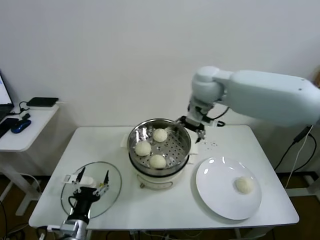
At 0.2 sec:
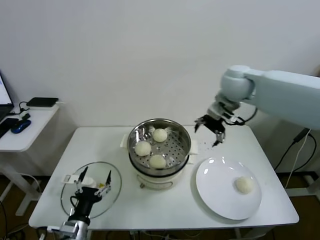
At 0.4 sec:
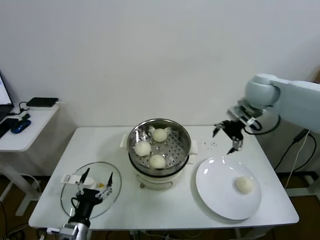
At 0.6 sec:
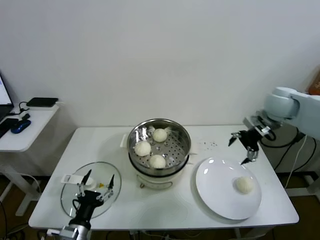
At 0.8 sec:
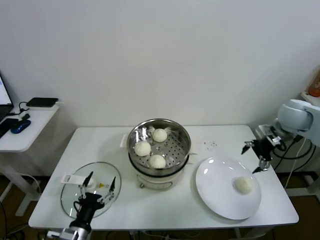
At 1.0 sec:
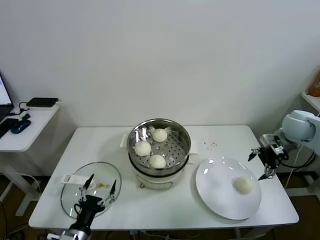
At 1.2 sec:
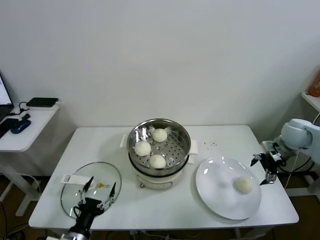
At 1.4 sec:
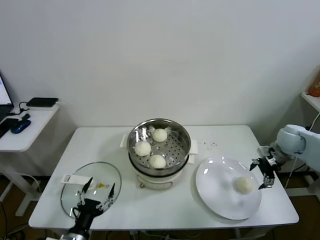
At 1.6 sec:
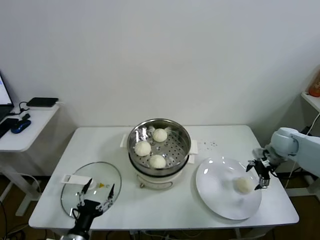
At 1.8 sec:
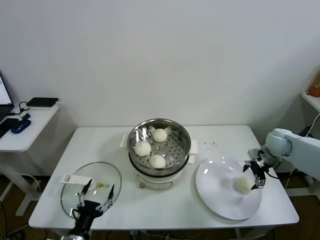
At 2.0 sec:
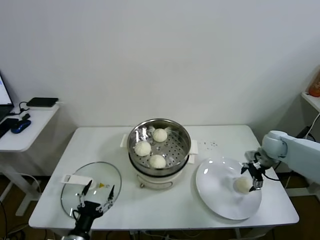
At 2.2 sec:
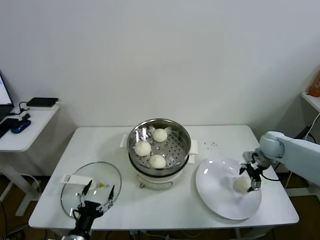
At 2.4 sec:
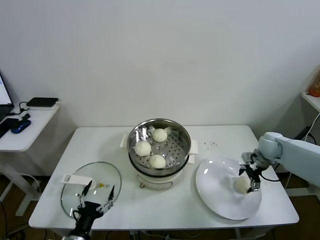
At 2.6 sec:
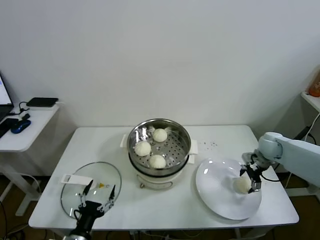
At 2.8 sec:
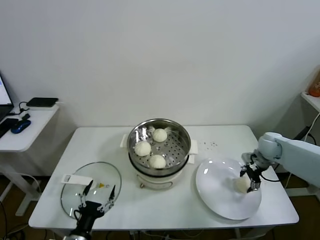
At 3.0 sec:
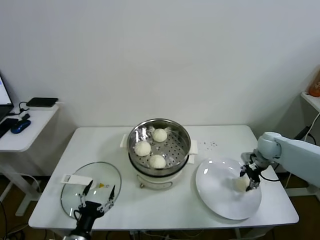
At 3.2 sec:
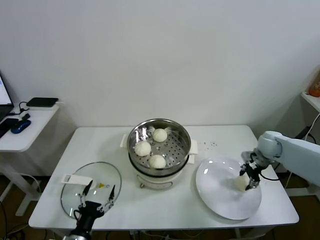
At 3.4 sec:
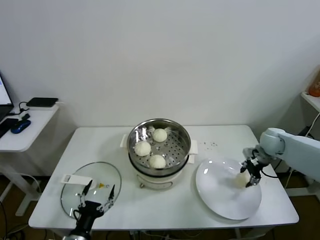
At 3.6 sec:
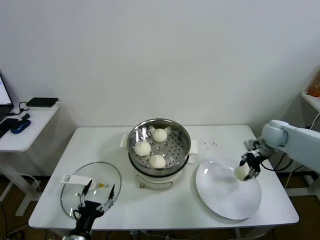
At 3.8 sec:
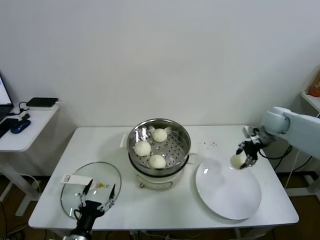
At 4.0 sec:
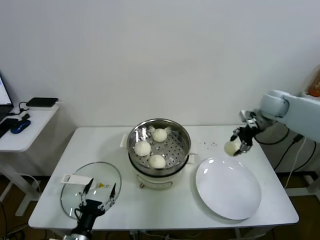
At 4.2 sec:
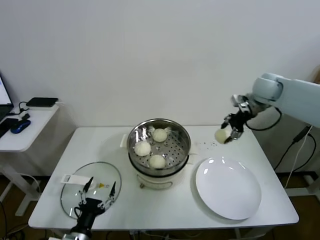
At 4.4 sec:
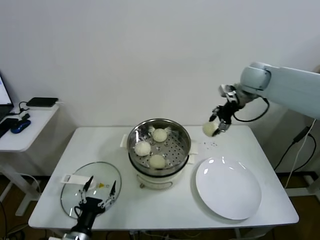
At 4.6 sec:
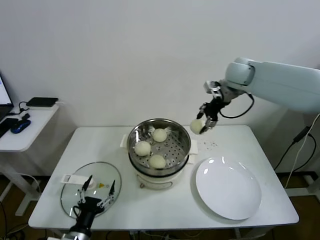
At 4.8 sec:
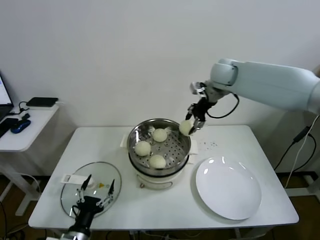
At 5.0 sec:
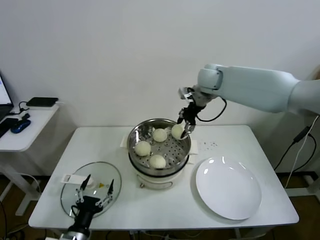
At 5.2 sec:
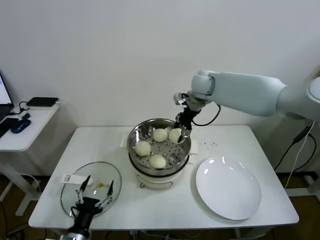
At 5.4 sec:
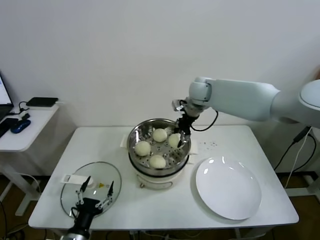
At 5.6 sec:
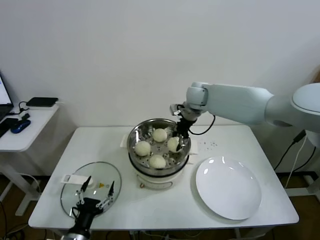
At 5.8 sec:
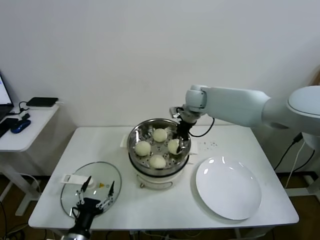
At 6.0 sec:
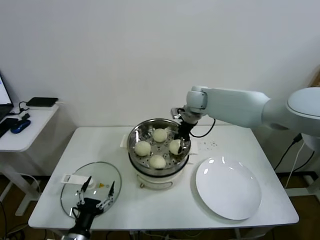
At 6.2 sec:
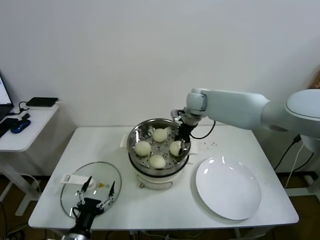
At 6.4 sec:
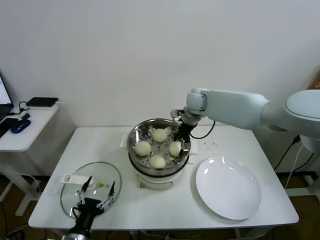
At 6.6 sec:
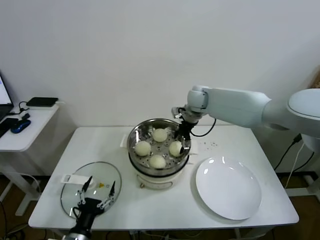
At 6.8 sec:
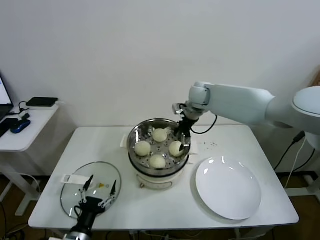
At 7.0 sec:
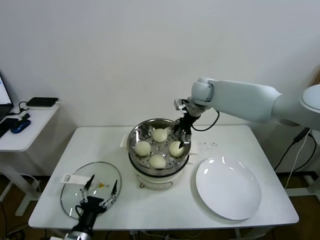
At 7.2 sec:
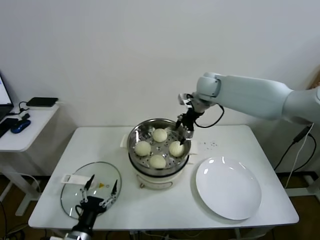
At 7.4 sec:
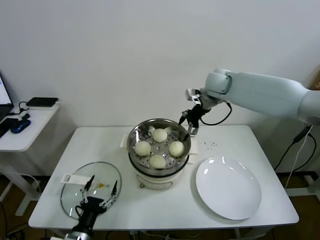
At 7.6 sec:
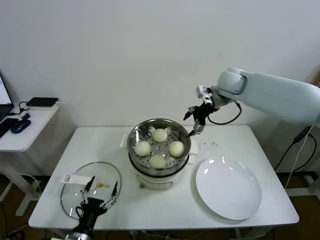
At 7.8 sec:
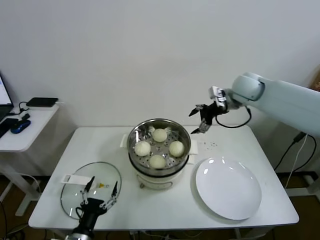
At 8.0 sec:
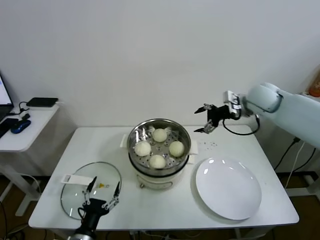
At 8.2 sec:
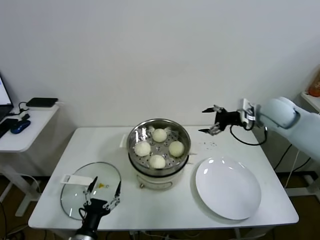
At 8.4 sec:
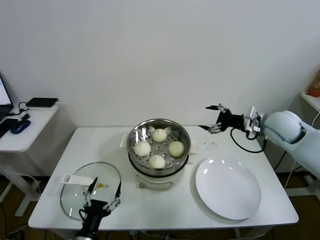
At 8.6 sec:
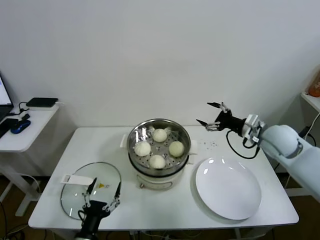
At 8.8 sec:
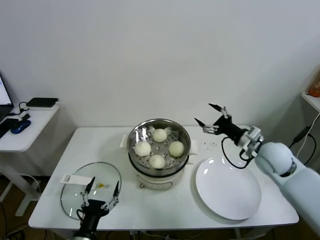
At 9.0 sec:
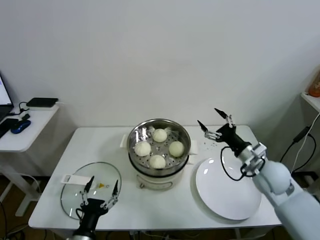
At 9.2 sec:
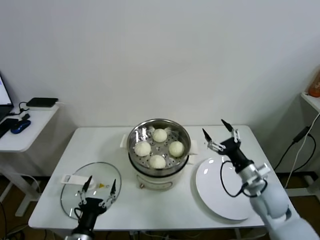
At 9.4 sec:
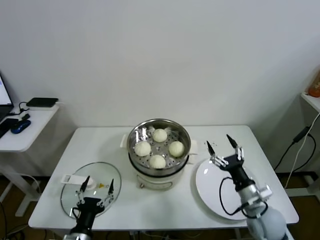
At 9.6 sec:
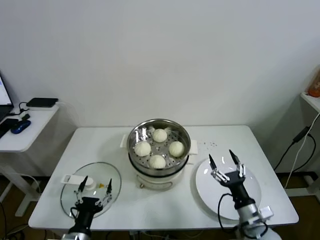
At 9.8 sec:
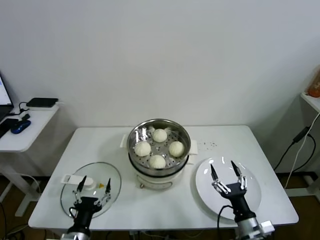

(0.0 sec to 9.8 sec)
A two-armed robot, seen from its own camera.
Task of the whole recording: take steamed baozi put them in steamer.
Step, 0.0 sec - 3.0 sec: Grasp the baozi in the plate with right gripper.
Step, 3.2 sec - 6.6 sec: Place the baozi on the steamer with right gripper.
0.0 sec - 1.4 sec: The right gripper is displaced to the right and downward by some 35 cm.
1.4 sec - 2.8 sec: The right gripper travels downward by about 5 cm, and closes its fingers.
2.8 sec - 4.2 sec: The right gripper moves upward, approximately 20 cm, and closes its fingers.
4.2 sec - 5.6 sec: The right gripper travels to the left by some 20 cm.
5.6 sec - 7.0 sec: The right gripper opens.
7.0 sec - 8.4 sec: The right gripper moves to the right and backward, some 25 cm.
8.4 sec - 9.8 sec: The right gripper heads backward and downward, covering about 35 cm.
